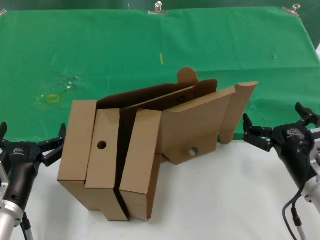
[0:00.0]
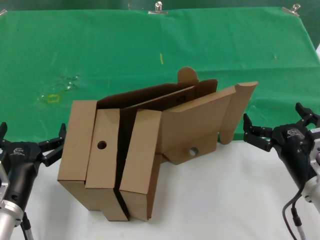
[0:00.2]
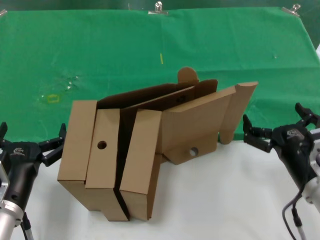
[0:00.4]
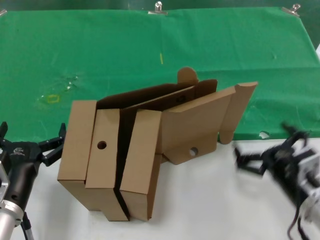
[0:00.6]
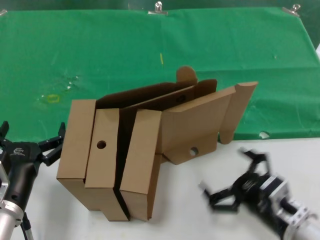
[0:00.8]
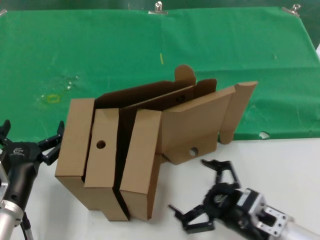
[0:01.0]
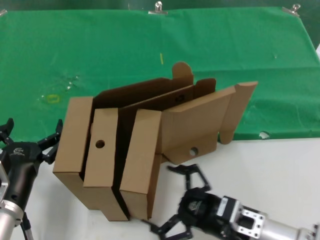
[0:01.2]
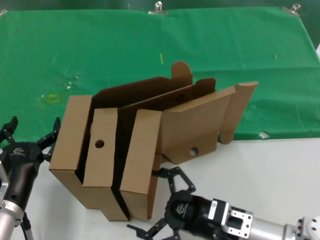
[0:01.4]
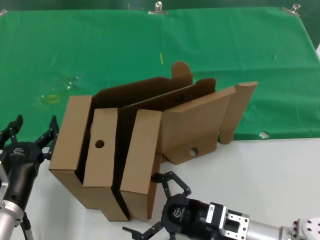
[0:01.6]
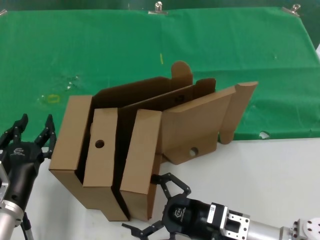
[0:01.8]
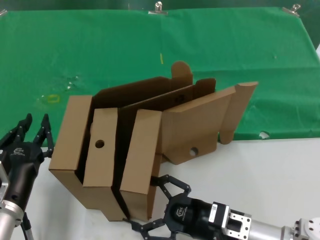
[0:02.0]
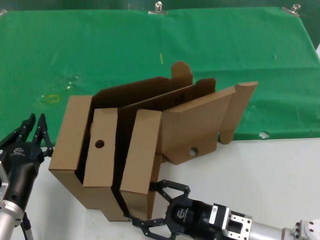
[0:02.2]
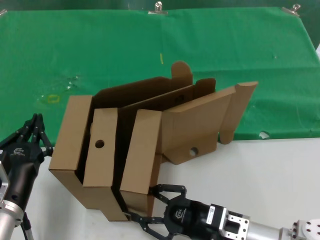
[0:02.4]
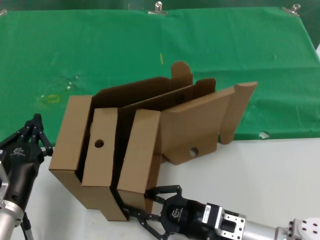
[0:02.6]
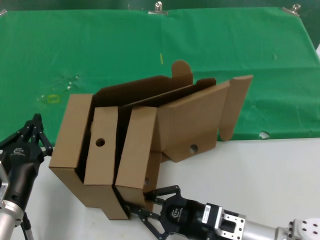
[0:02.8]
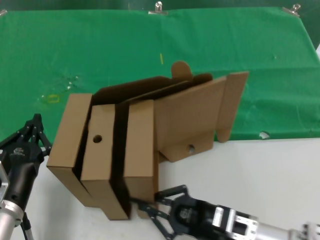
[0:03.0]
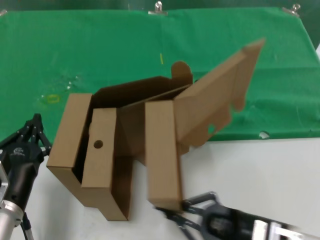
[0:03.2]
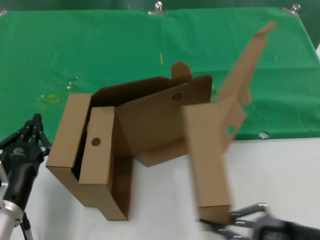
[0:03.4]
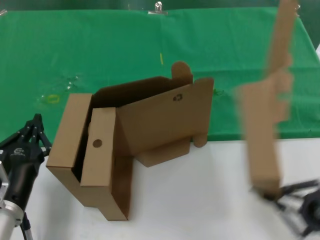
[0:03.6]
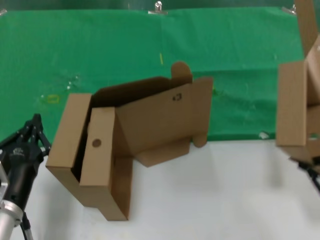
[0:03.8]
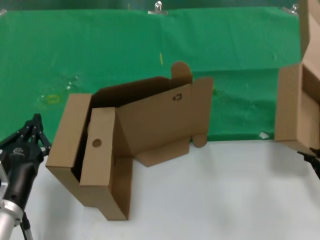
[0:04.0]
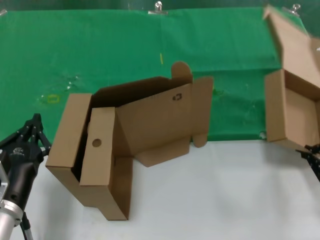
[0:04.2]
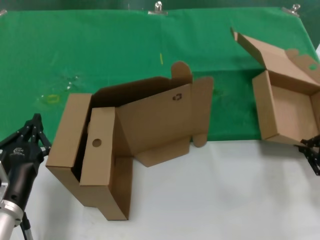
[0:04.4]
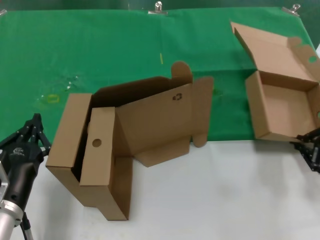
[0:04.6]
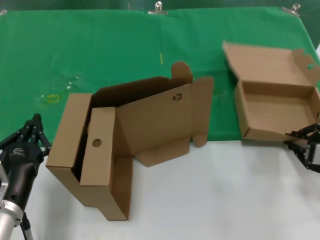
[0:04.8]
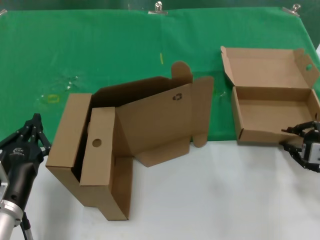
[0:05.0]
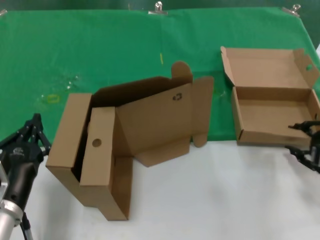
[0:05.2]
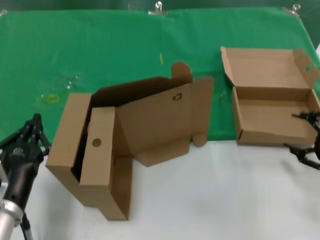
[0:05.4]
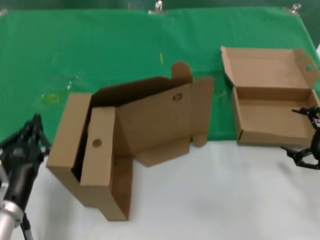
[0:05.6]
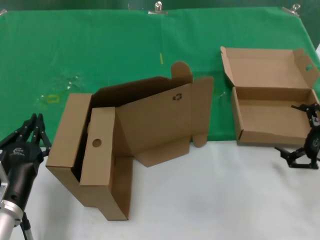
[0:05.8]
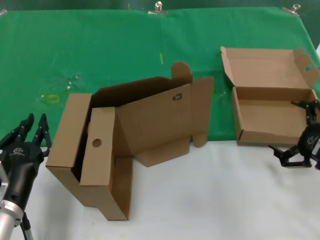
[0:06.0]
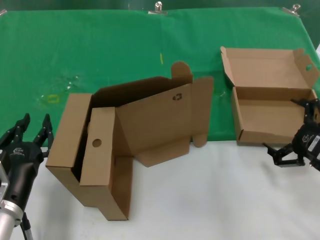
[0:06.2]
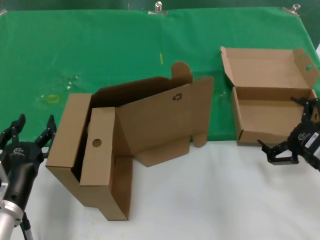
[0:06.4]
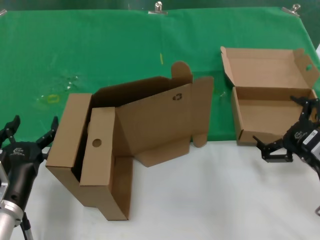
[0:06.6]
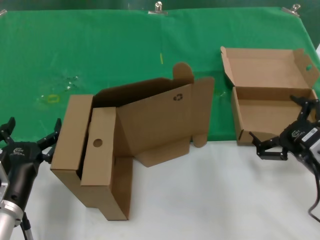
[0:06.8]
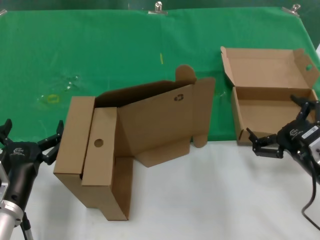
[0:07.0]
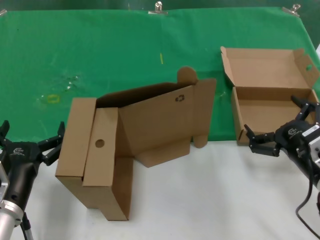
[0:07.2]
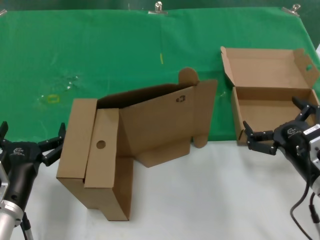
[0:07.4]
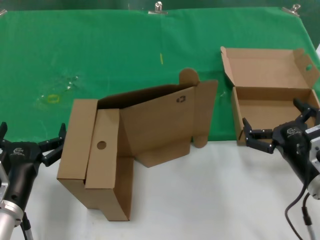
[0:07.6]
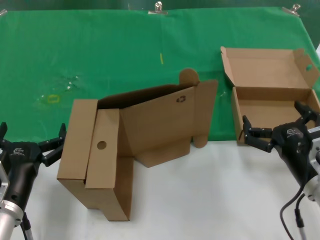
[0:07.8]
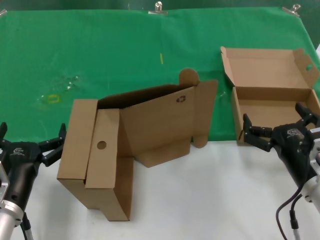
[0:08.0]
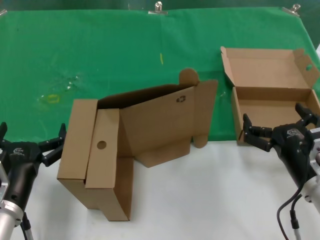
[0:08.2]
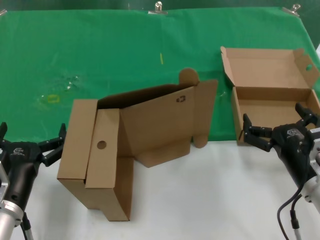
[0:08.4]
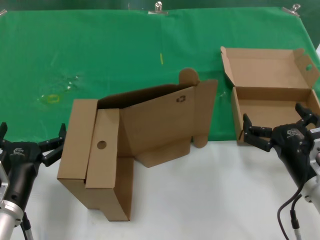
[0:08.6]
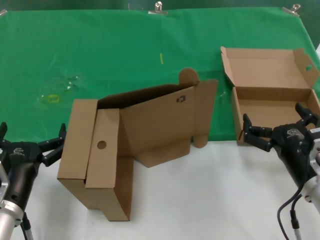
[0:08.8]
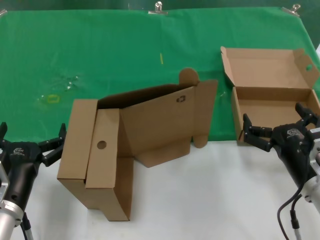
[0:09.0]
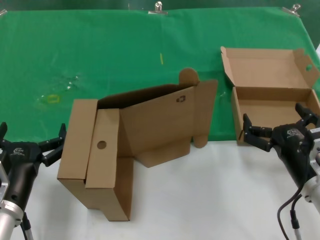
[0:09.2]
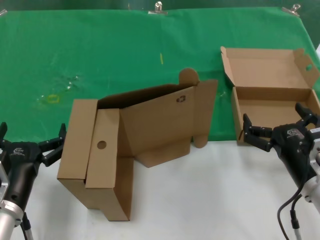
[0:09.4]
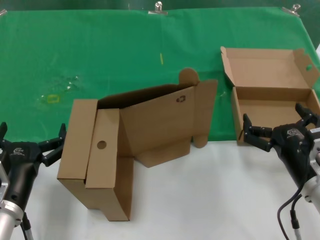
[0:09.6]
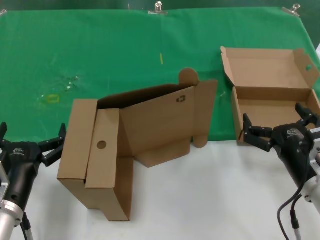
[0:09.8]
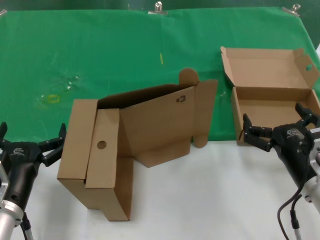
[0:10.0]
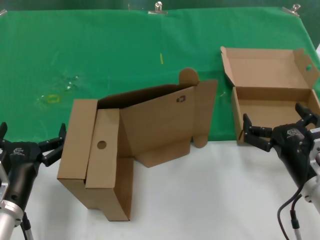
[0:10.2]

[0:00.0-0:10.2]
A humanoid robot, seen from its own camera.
Task of the whole recording: pick up the paper box and put it at the back.
Step, 0:00.0 to 0:02.8: Grasp the paper box.
Step, 0:03.0 to 0:05.0: Place the paper box on the table.
0:00.0 to 0:01.4: The right hand is displaced to the left and downward by roughly 10 cm.
0:01.4 to 0:03.0: There are only small adjustments of the hands.
0:03.0 to 0:04.4: The right hand heads to the right and upward, covering about 25 cm.
0:04.4 to 0:05.8: The right hand shifts by about 5 cm.
0:05.8 to 0:07.2: The right hand shifts approximately 10 cm to the left.
0:08.8 to 0:10.2: The two hands keep their place.
